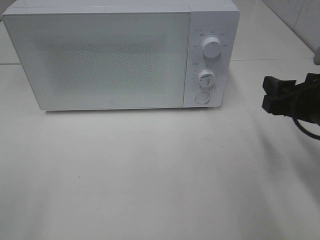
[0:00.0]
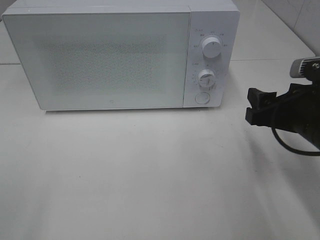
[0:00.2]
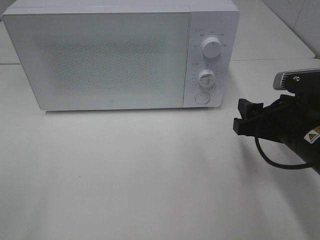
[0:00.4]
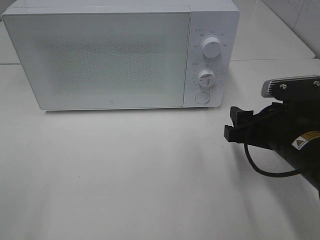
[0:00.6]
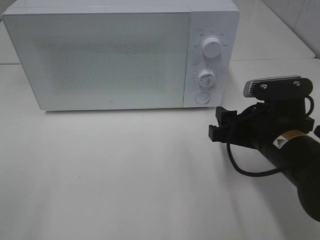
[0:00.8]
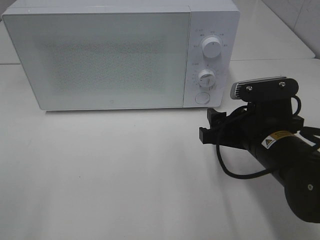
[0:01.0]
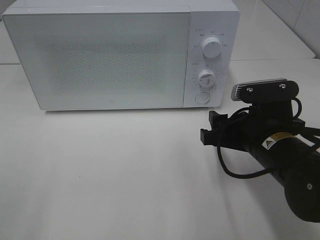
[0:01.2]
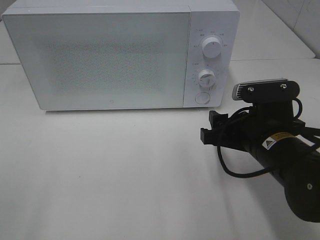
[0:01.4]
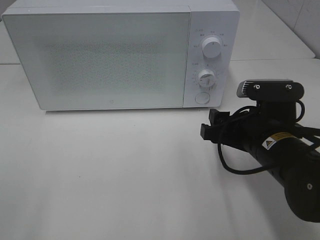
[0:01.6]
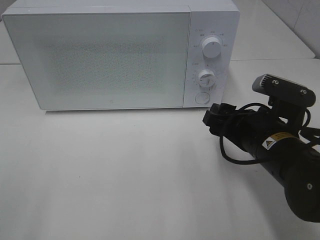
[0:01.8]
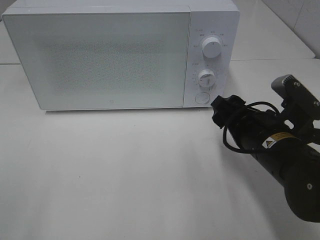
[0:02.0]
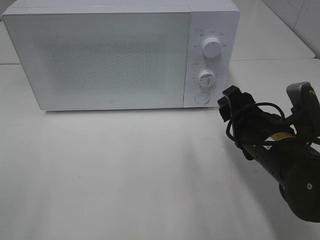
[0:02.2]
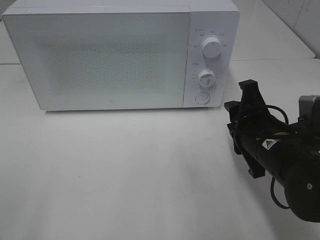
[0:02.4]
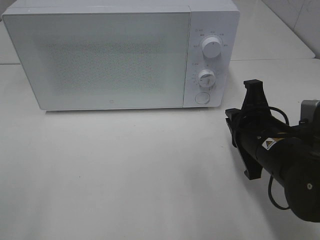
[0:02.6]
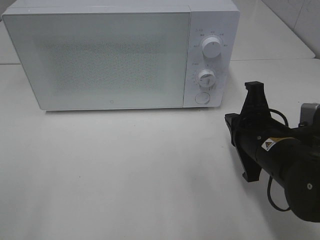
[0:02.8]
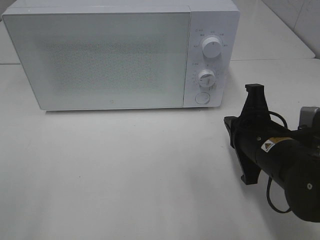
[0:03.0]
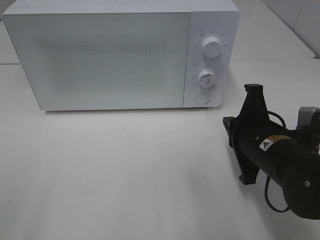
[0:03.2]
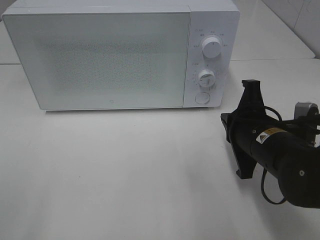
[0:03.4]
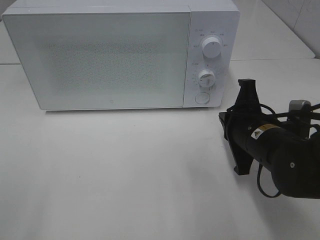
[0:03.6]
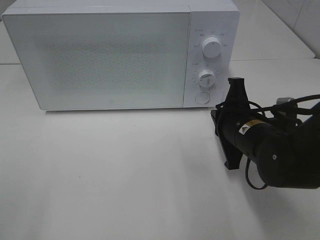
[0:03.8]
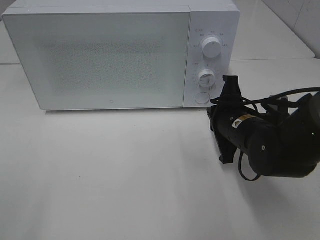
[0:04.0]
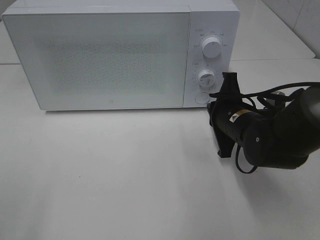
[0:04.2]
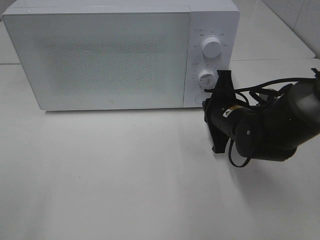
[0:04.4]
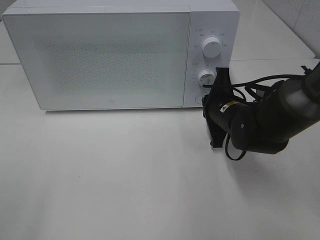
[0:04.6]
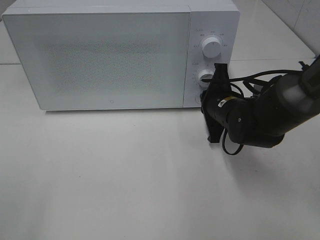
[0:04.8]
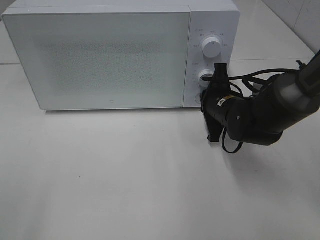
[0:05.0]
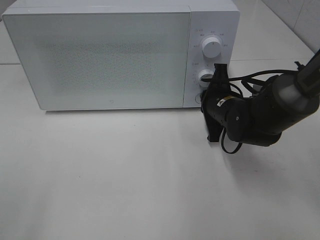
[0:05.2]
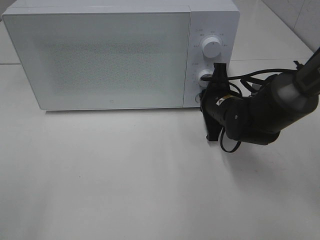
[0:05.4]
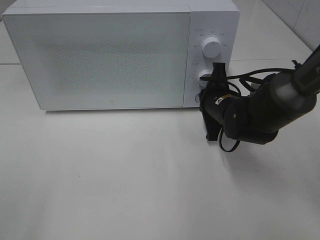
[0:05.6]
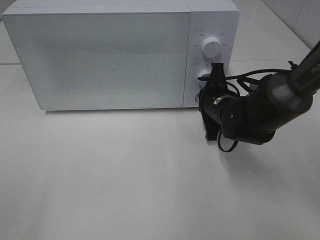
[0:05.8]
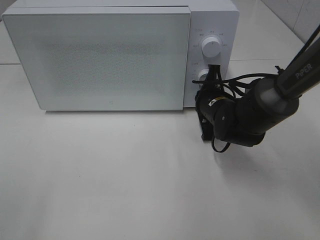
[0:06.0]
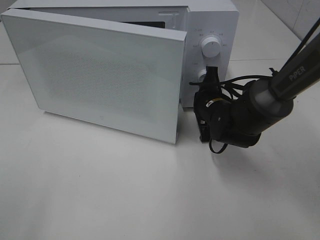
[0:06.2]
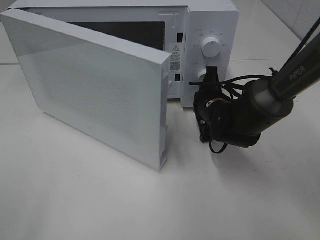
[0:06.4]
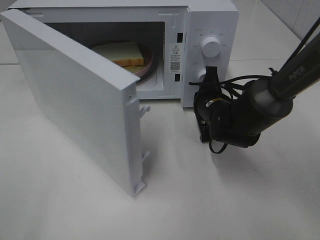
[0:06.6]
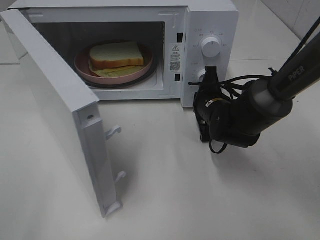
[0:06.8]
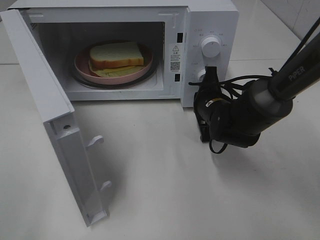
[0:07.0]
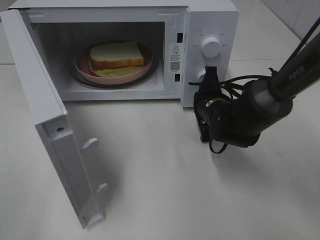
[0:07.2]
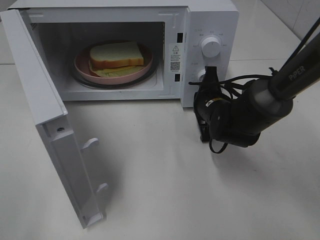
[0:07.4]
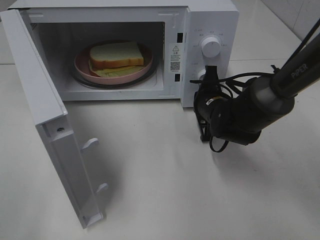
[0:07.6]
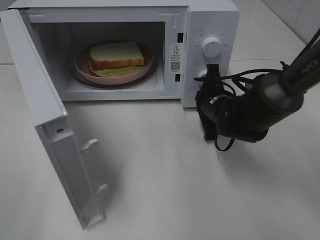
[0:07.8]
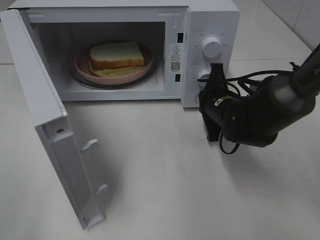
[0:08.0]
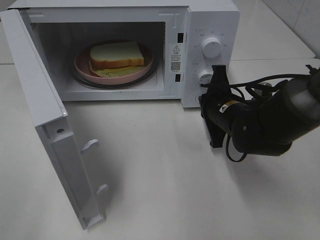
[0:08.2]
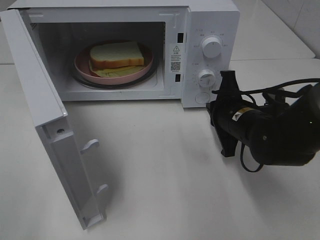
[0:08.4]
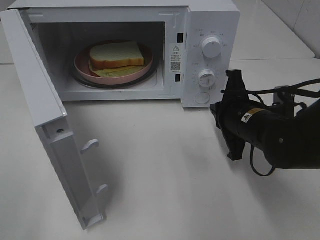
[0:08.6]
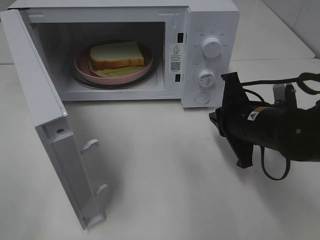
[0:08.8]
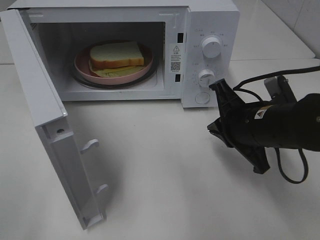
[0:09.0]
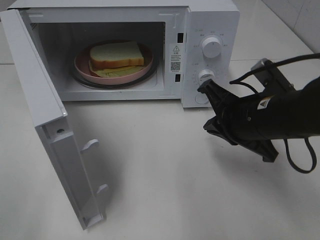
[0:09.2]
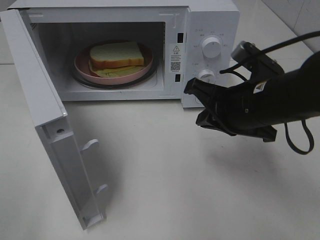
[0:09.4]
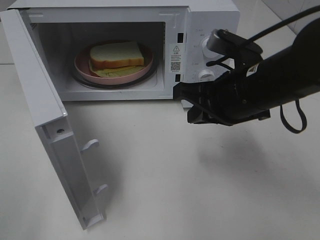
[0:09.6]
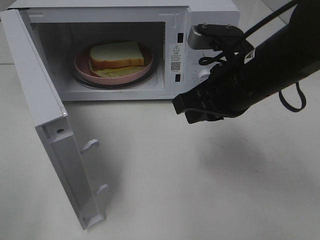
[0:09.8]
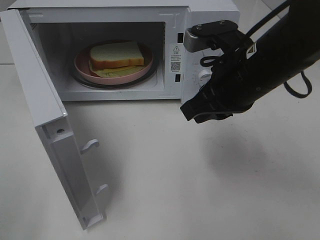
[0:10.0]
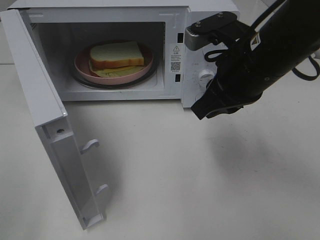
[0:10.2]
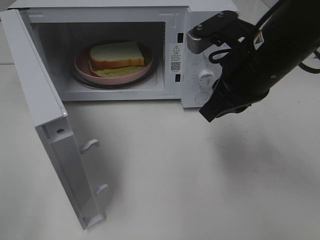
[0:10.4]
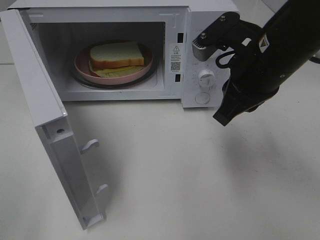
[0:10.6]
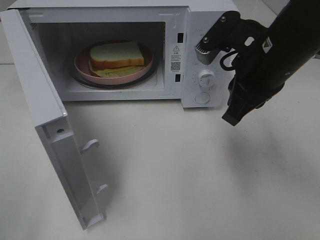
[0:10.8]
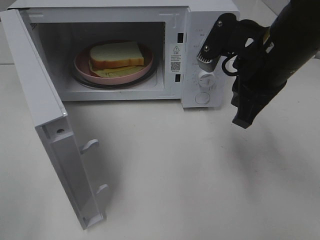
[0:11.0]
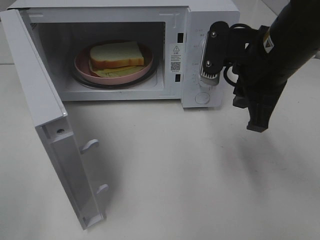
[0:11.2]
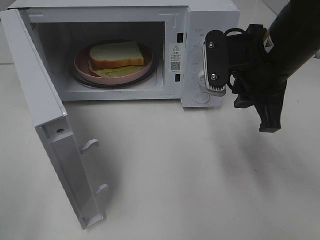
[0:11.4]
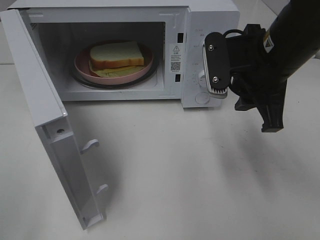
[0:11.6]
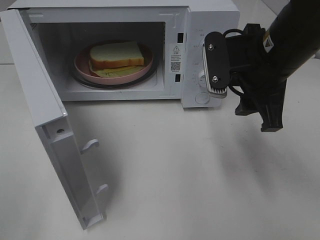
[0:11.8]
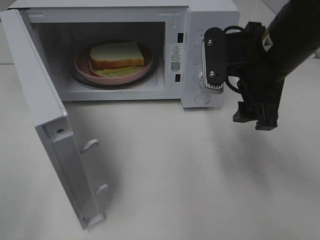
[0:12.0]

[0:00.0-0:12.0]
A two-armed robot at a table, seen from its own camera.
Task of the whole recording: Heat Sandwich.
Step, 0:00.0 to 0:08.2: Right hand: press the switch.
0:00.0 to 0:01.6: The right gripper travels to the left and downward by about 10 cm.
0:01.6 to 0:03.0: The right gripper closes.
0:03.0 to 0:04.4: The right gripper heads forward, covering roughly 10 cm.
0:04.4 to 0:06.0: The right gripper changes place by about 5 cm.
0:07.6 to 0:09.0: The right gripper shifts roughly 15 cm backward and upward.
0:09.0 to 0:10.4: The right gripper is displaced upward by some 10 cm.
0:10.4 to 0:12.0: The right gripper opens.

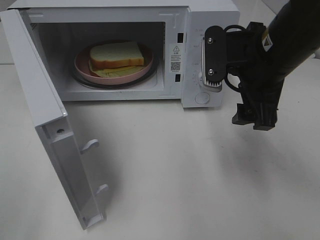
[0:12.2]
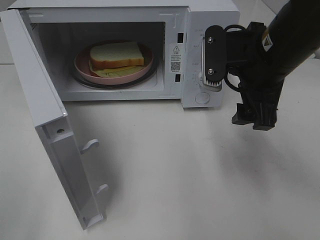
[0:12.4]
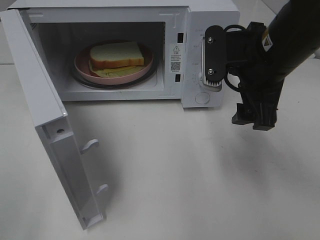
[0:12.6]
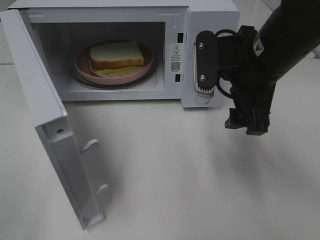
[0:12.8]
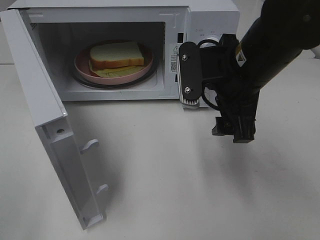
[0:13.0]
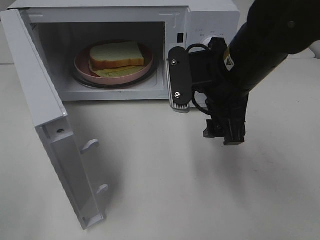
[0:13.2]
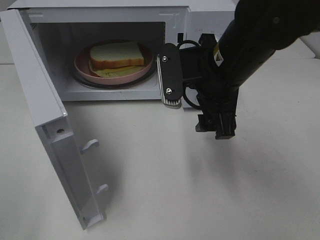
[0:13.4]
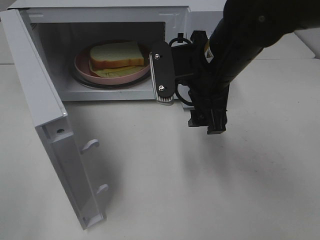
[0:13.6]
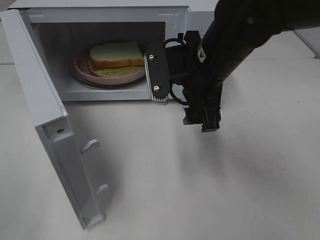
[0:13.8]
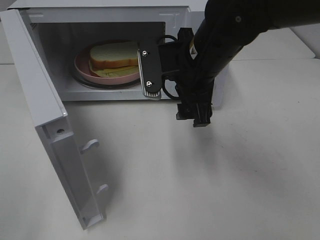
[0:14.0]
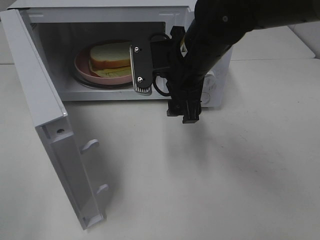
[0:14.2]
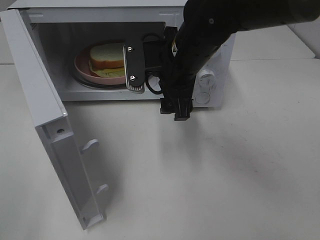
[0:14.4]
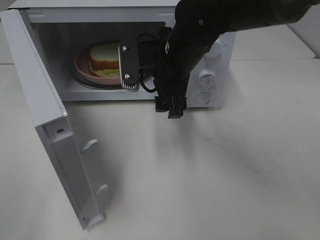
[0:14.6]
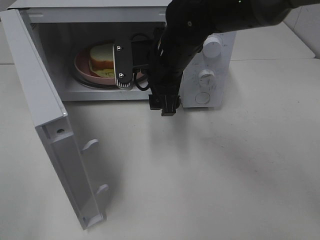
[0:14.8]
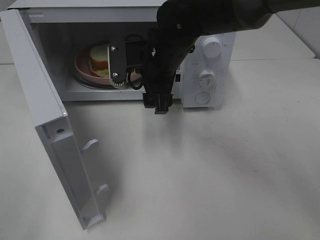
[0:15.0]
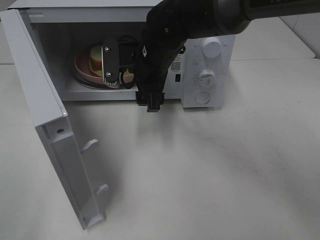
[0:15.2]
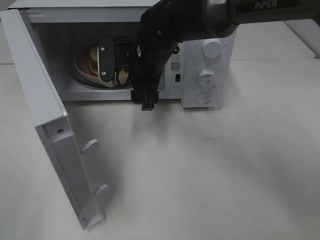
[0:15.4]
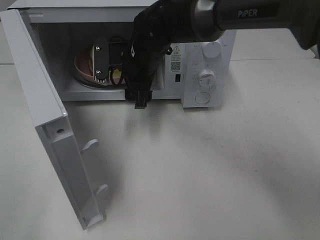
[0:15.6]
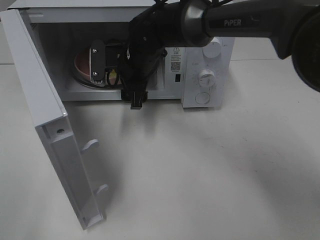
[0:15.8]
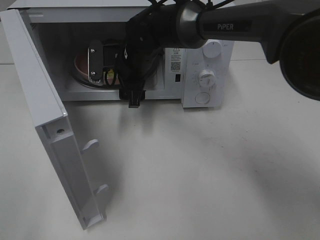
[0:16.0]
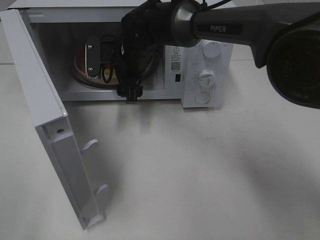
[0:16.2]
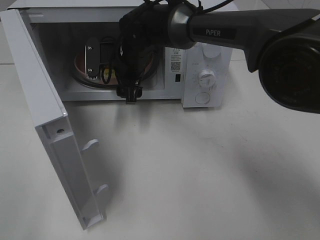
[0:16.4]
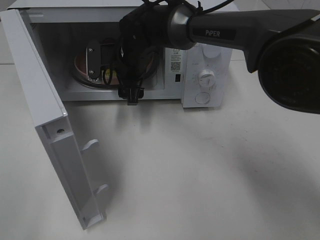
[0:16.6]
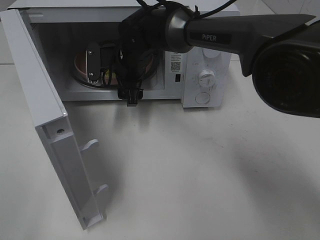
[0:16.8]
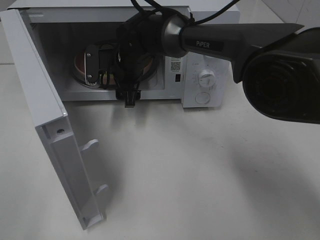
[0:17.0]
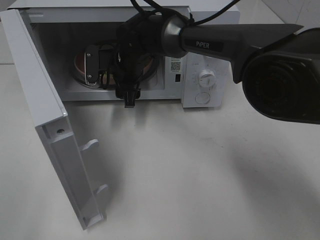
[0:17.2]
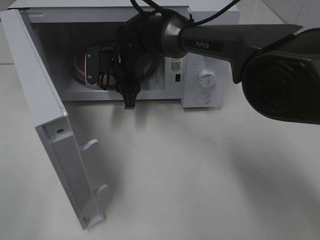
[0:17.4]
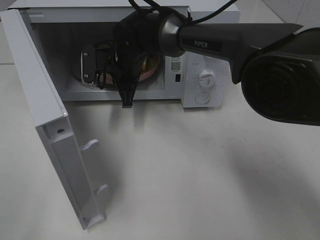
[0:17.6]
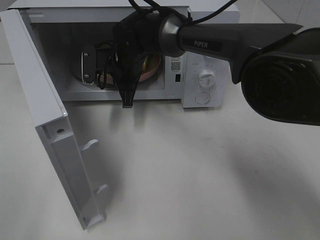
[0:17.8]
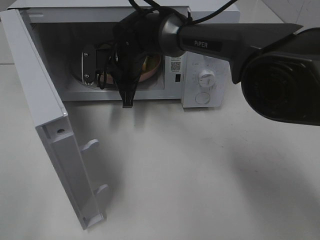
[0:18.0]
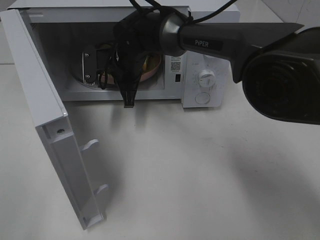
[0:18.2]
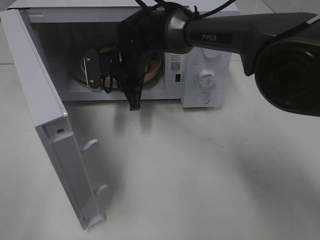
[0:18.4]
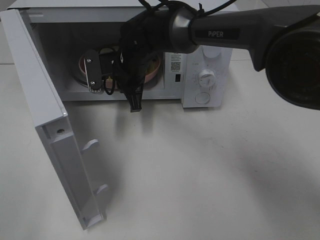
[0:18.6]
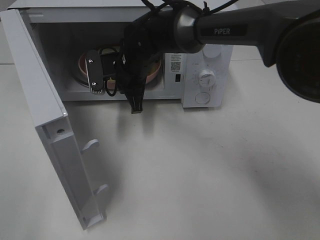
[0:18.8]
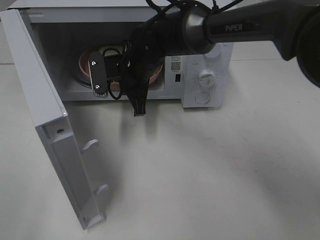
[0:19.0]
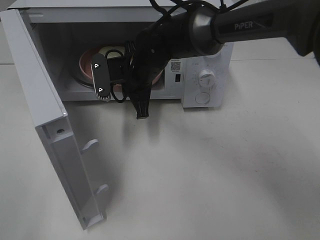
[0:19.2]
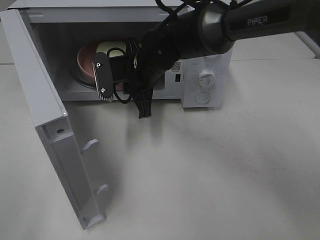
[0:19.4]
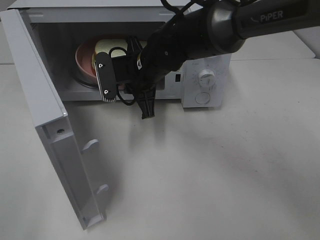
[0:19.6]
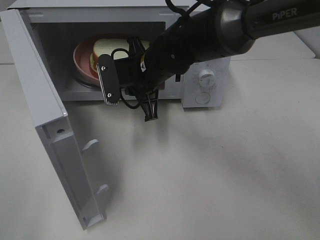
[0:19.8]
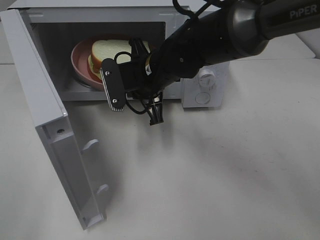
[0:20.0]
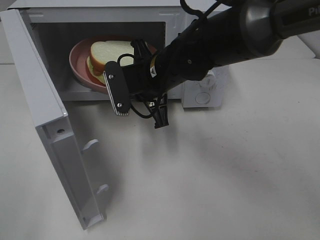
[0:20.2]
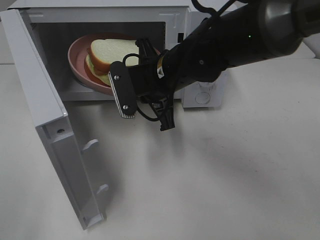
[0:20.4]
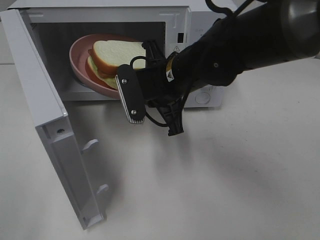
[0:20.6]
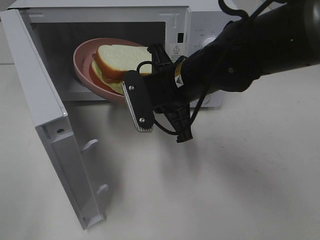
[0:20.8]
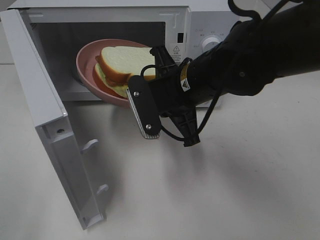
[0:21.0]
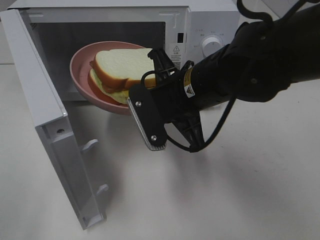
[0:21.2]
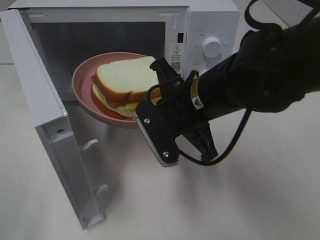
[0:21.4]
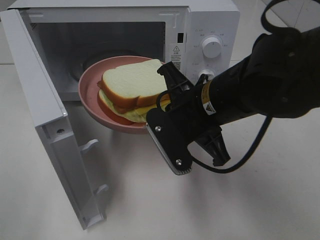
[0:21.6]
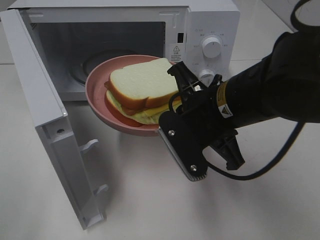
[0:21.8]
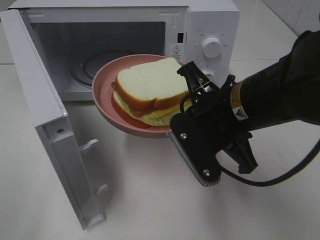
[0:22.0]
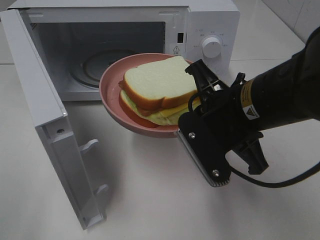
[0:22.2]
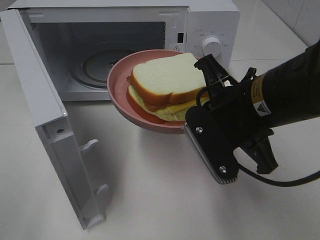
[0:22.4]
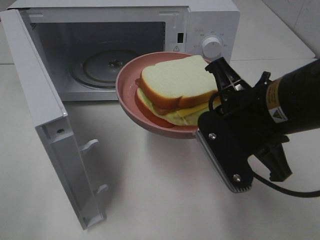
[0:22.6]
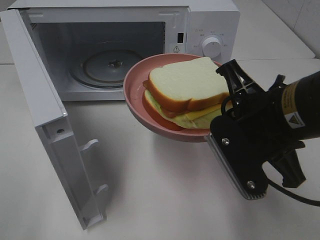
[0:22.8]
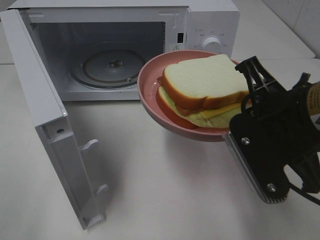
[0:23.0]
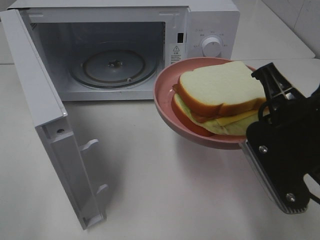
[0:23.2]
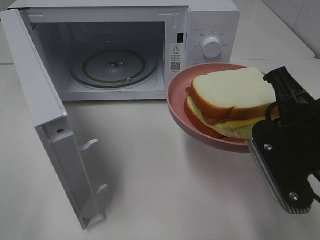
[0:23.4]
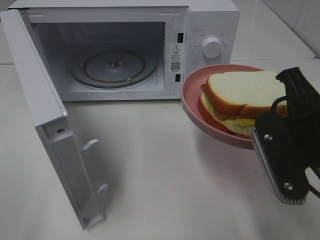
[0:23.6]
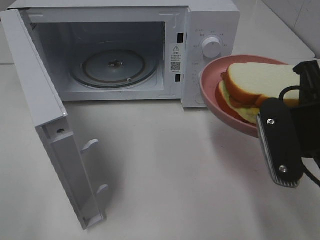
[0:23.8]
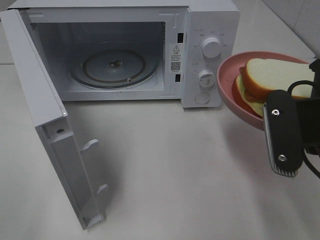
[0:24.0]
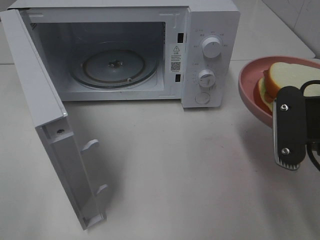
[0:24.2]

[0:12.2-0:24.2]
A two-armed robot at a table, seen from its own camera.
Task of the whole recording: Heat Sandwich.
Step, 0:12.2 to 0:18.0: Right hand: grab the plate with the sandwich.
0:12.2 to 0:13.8: The right gripper shifts about 5 cm to the left.
0:13.8 to 0:15.2: The right gripper is displaced forward and to the left by about 10 cm.
0:15.2 to 0:16.6: The right gripper shifts about 5 cm forward.
0:16.6 to 0:18.2: The right gripper closes its fingers.
0:18.2 to 0:19.8: The right gripper shifts roughly 5 cm backward.
0:19.8 to 0:21.2: The right gripper shifts about 10 cm backward and to the right.
0:21.2 to 0:22.6: The right gripper heads to the right and backward, covering some 10 cm.
0:22.6 to 0:24.2: The right gripper heads to the right, covering about 5 cm.
